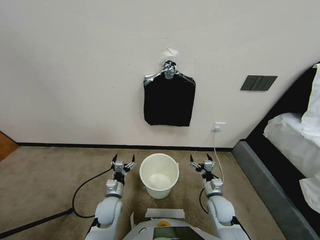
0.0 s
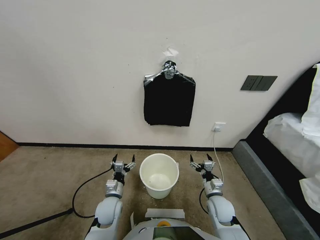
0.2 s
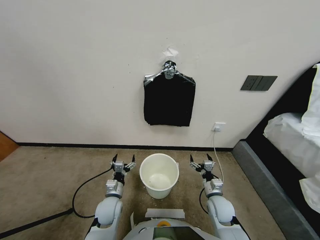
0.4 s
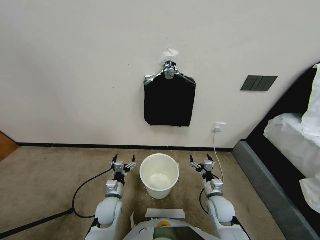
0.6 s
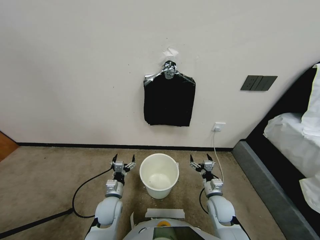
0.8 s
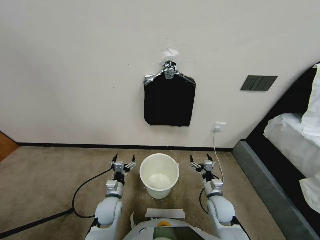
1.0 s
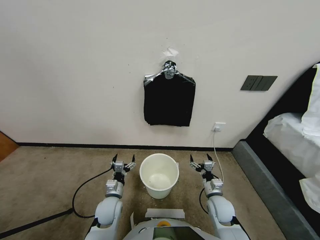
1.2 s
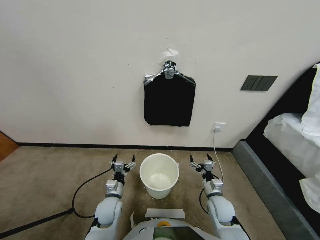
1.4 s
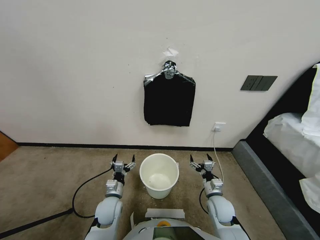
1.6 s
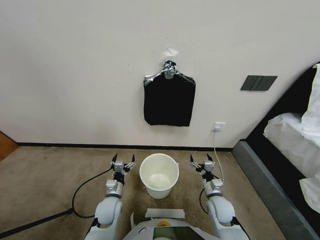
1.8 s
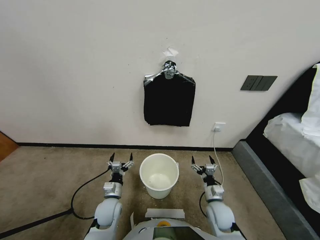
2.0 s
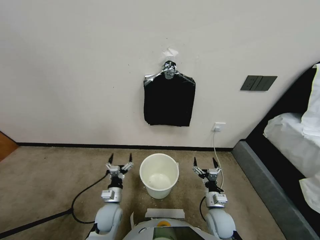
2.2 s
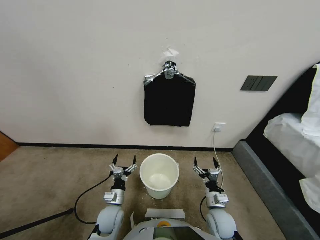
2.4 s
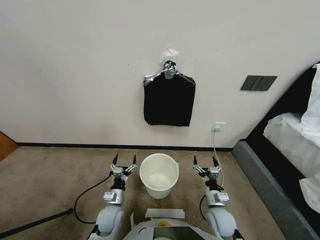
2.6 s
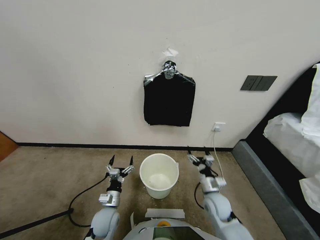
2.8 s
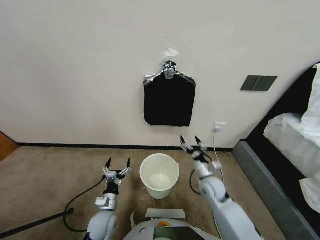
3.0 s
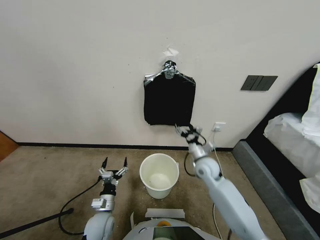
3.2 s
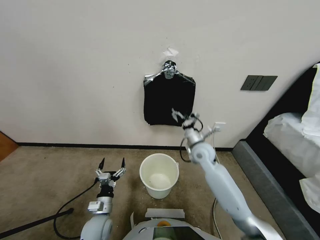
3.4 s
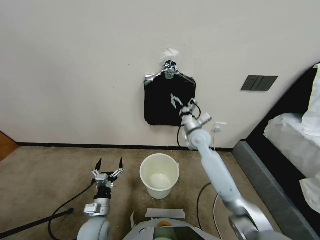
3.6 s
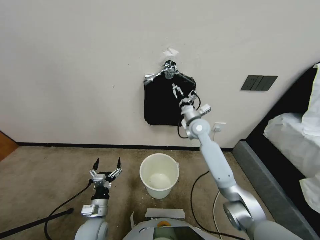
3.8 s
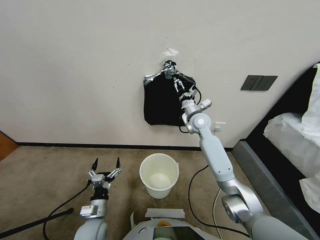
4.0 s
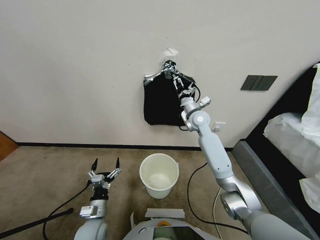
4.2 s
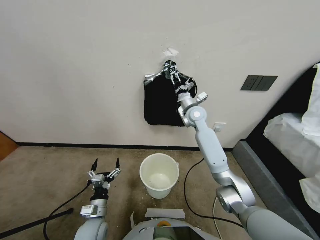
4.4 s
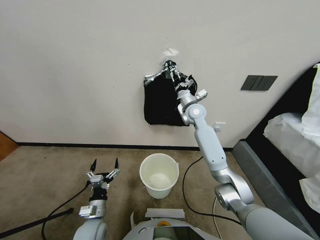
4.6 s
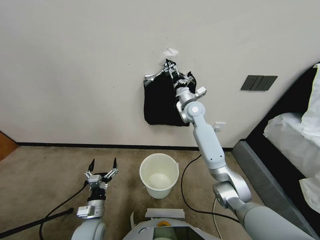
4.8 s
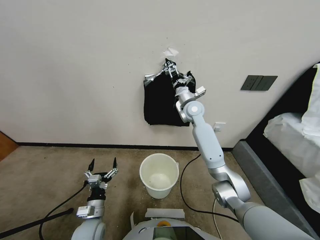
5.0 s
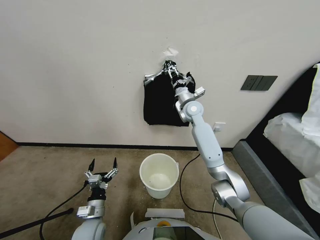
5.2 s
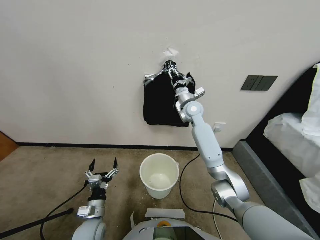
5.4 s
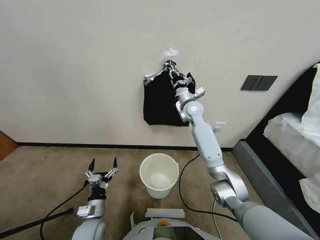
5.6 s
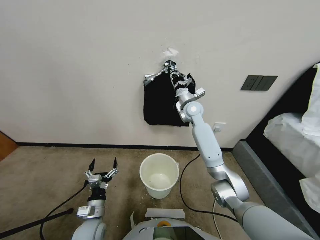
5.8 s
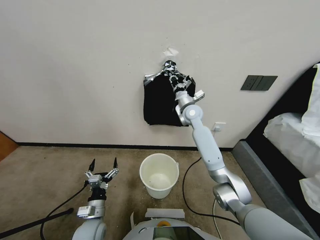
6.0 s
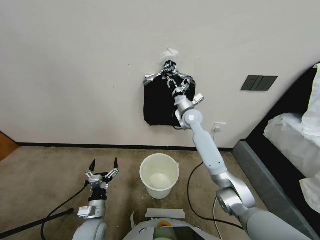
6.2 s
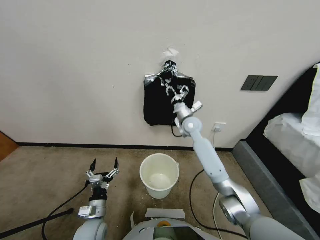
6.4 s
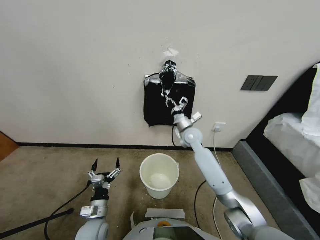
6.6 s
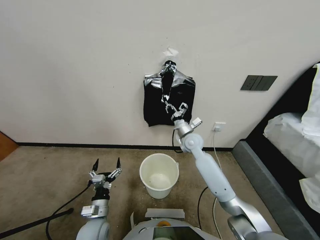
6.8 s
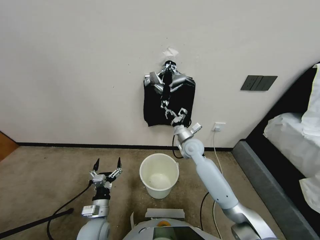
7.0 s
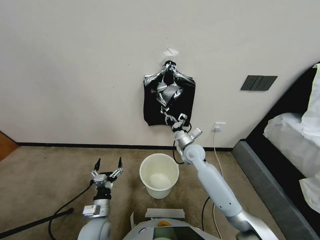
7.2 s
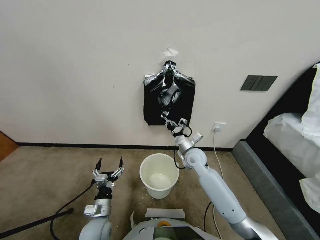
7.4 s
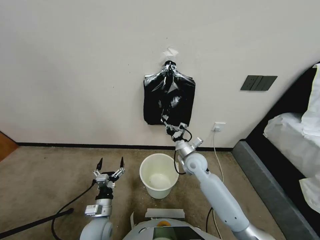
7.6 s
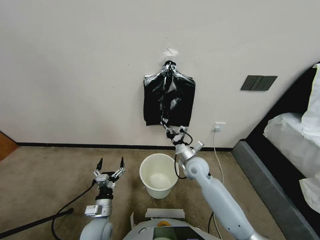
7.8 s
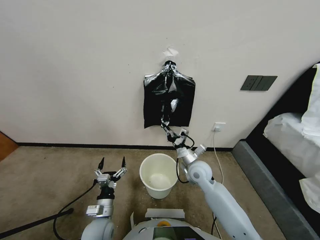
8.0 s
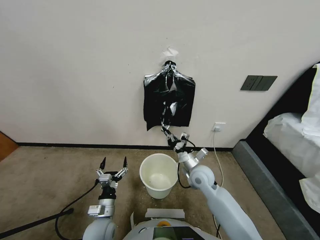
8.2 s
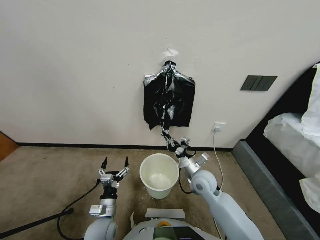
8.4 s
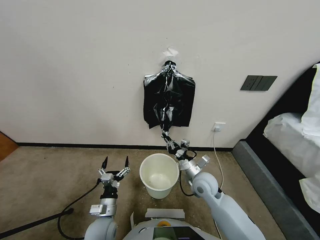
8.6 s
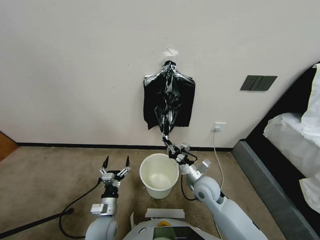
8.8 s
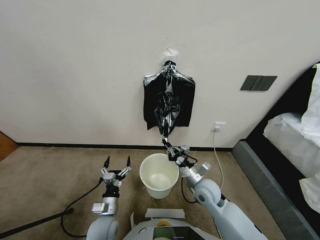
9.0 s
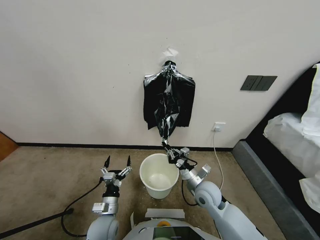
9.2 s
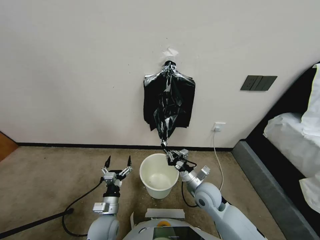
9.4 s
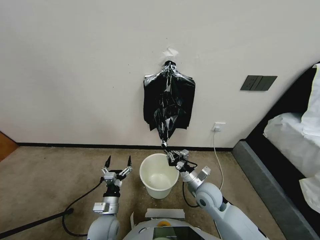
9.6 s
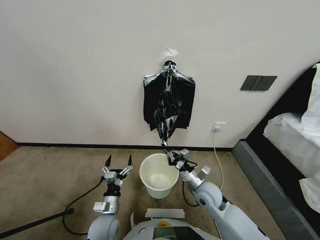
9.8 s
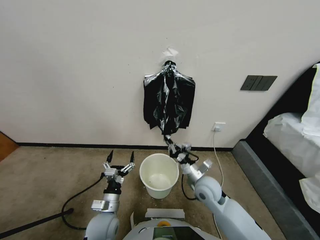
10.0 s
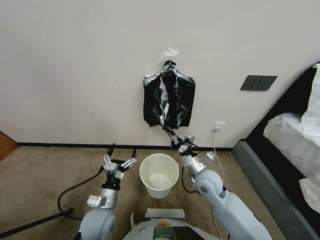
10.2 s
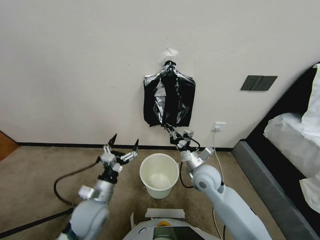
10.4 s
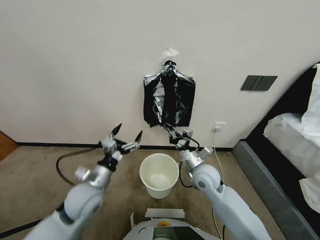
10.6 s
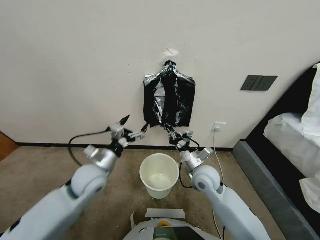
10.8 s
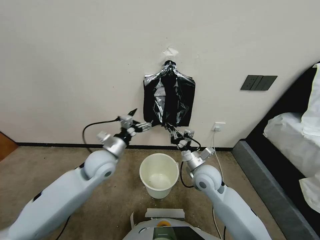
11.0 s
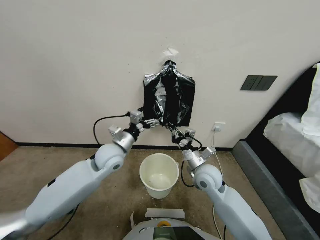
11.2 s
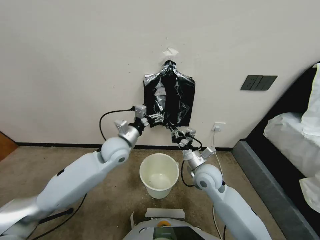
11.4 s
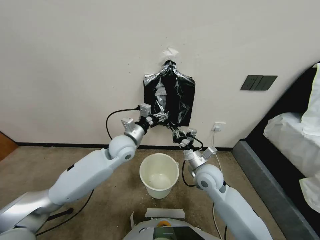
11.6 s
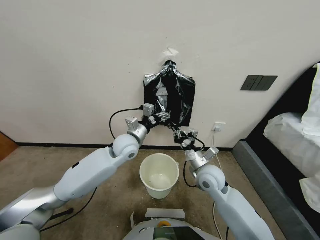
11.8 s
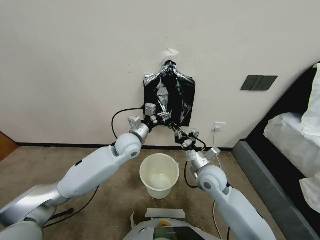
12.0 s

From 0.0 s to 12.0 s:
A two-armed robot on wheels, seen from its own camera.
Task of the whole recording: Place a trash bag onto the trash bin.
From 1.6 s to 3.0 s: The left gripper changes place by roughly 5 cm. The right gripper travels forward and upward by roughly 15 cm.
From 3.0 s to 4.4 s: The right gripper moves forward and upward, some 25 cm.
From 4.4 s to 6.0 s: The right gripper closes its fingers.
From 6.0 s to 7.6 s: The right gripper goes approximately 20 cm backward and downward.
From 7.6 s to 9.0 s: The right gripper is displaced backward by some 10 cm.
From 9.0 s to 10.4 s: The left gripper moves upward, roughly 15 cm. Meanwhile the right gripper is displaced upward by about 5 cm.
From 10.4 s to 12.0 s: The left gripper travels forward and to the right by roughly 20 cm.

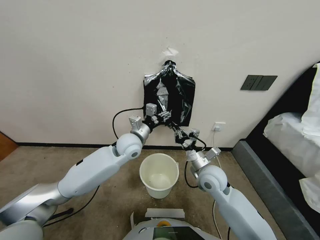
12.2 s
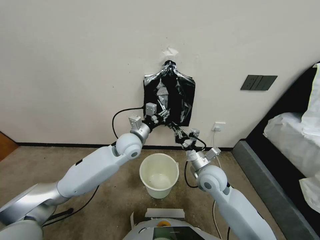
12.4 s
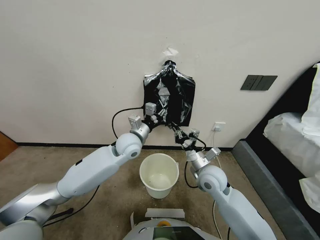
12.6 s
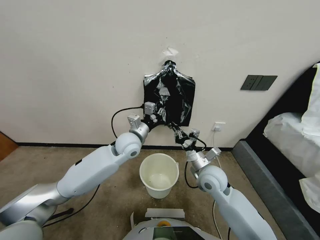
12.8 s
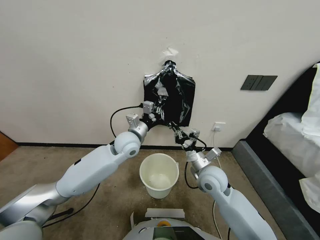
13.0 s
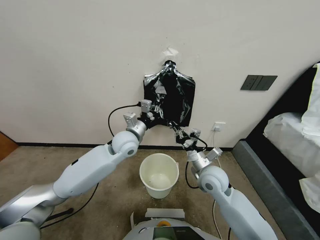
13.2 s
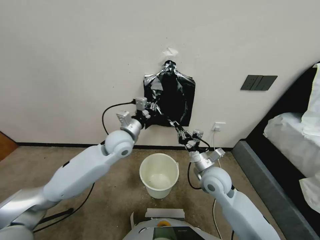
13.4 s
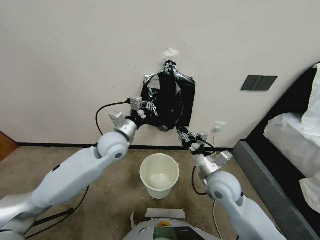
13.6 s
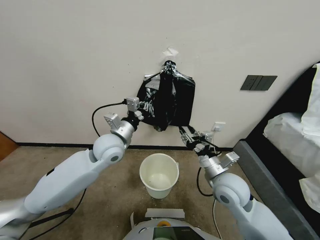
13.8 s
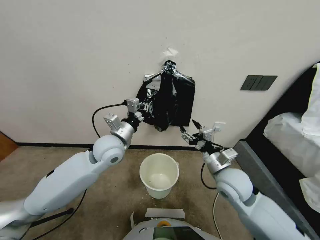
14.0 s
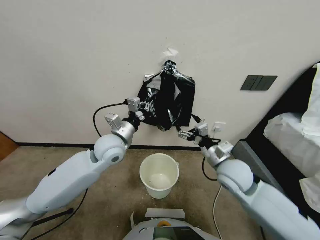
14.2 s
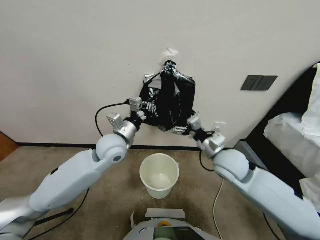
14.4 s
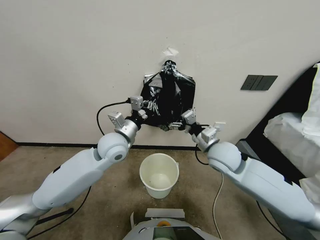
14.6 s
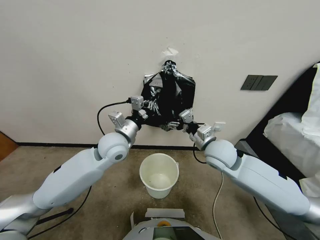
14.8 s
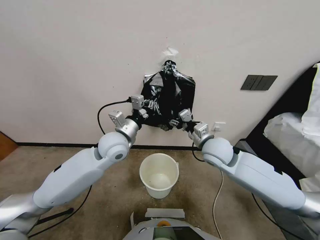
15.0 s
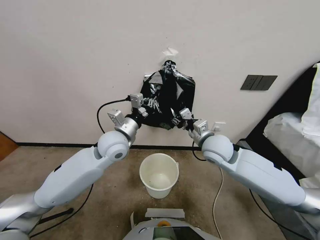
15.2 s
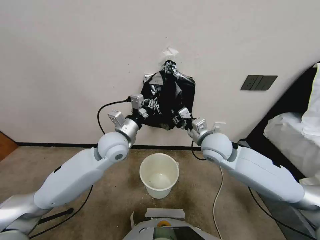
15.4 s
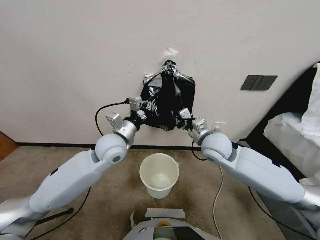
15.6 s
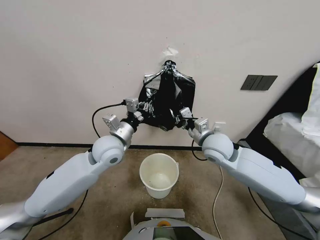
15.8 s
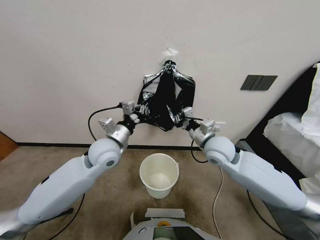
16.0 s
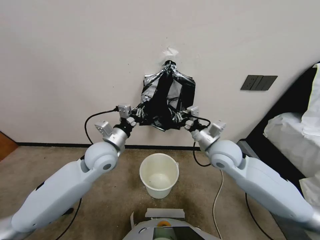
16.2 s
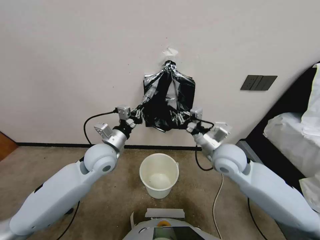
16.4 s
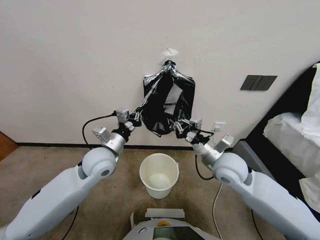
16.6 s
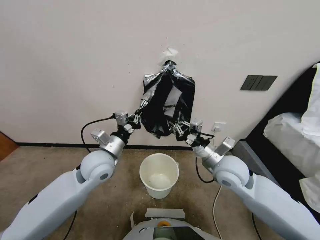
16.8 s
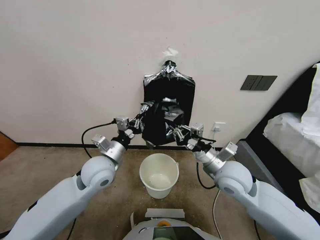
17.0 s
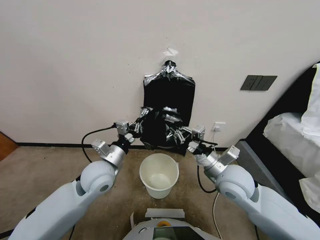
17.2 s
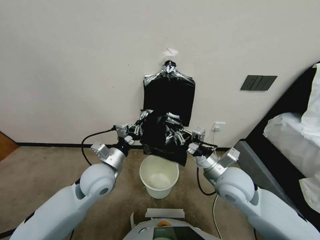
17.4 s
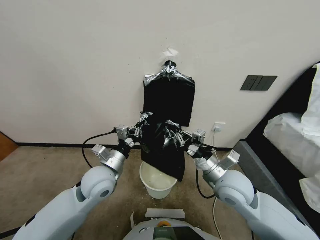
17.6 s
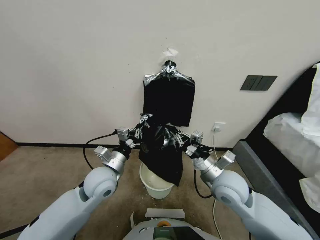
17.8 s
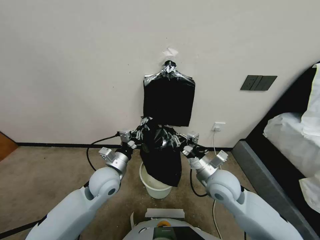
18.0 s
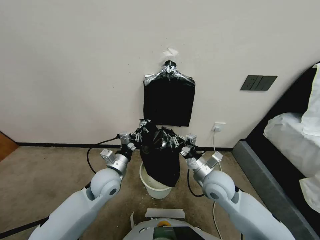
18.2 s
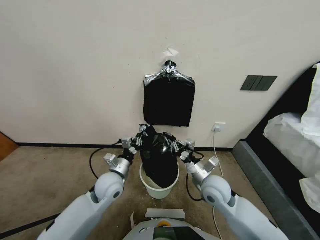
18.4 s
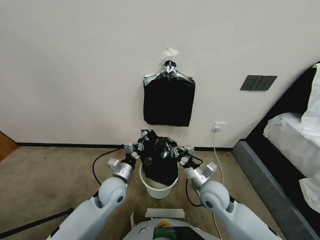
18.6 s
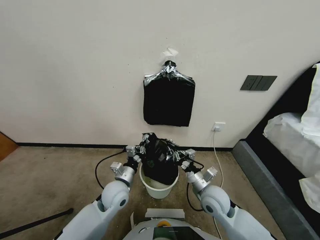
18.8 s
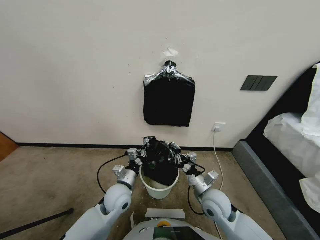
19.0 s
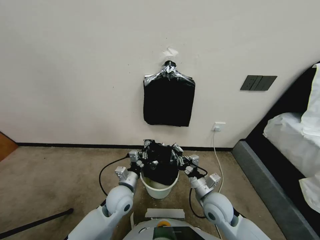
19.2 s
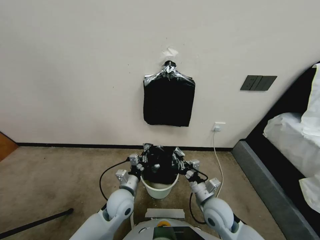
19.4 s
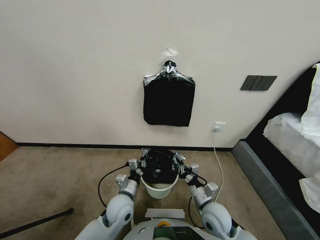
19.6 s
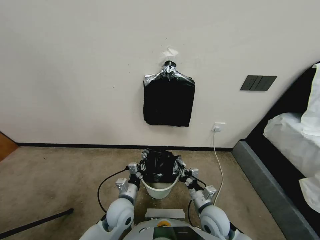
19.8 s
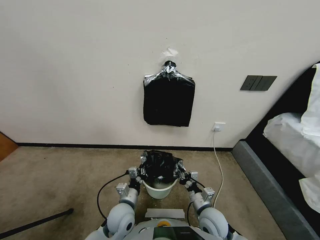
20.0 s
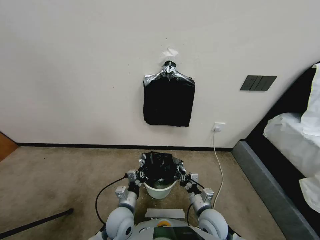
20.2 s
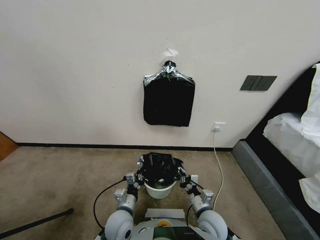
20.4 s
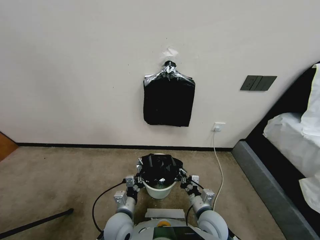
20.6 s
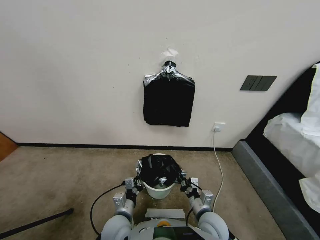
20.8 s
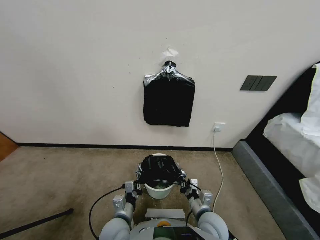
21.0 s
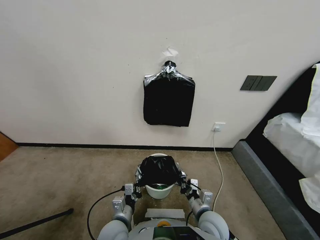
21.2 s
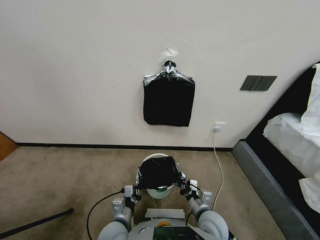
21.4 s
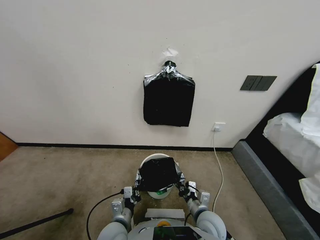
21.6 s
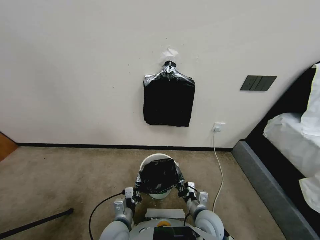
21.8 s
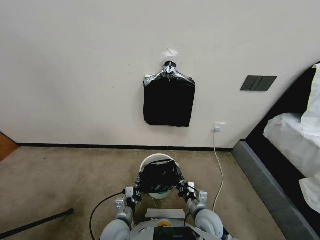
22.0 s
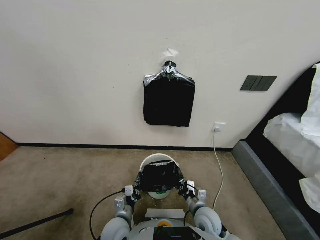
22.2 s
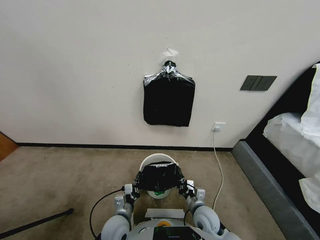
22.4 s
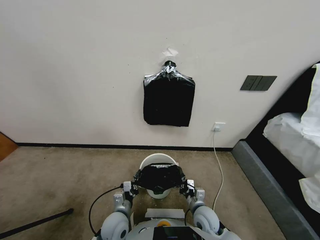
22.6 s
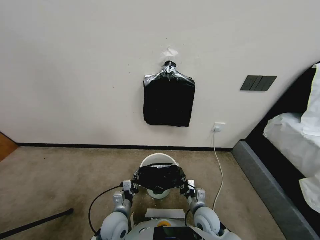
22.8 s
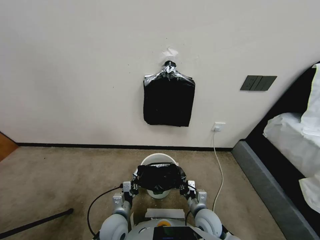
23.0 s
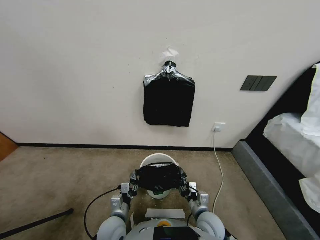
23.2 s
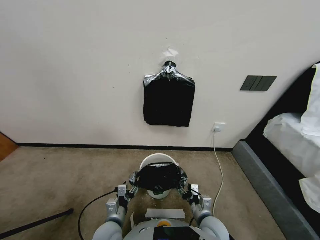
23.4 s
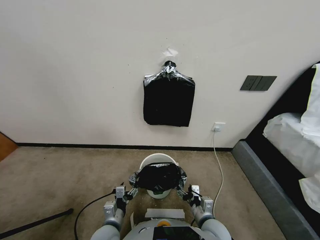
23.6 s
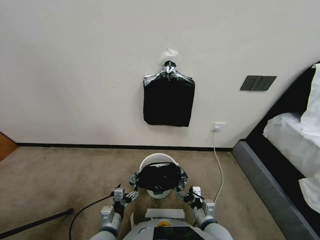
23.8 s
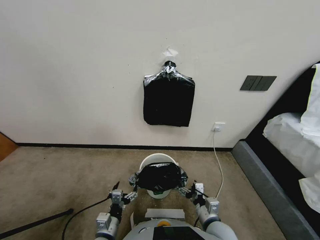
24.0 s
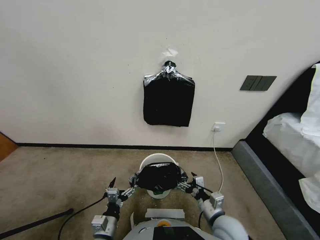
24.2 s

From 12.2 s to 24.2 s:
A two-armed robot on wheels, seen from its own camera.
Task of the whole recording: Place a trash bag onto the trash bin.
From 12.2 s to 13.8 s: The right gripper moves approximately 5 cm, and opens up, while the left gripper shifts roughly 5 cm to the left, and closes its fingers.
From 13.8 s to 15.2 s: The right gripper heads forward and upward, covering about 10 cm, and opens, then closes again.
From 15.2 s to 16.6 s: Both grippers move backward, roughly 5 cm.
From 16.6 s to 18.2 s: Both grippers move downward, approximately 10 cm.
From 18.2 s to 19.8 s: Both grippers move downward and backward, roughly 15 cm.
From 19.8 s to 21.2 s: The left gripper travels backward by some 5 cm.
From 21.2 s to 22.6 s: The right gripper is displaced downward by approximately 5 cm; the left gripper shifts by about 5 cm.
From 22.6 s to 24.2 s: The left gripper heads backward, covering approximately 10 cm, and opens its fingers, while the right gripper is displaced upward by some 10 cm, and opens its fingers.
